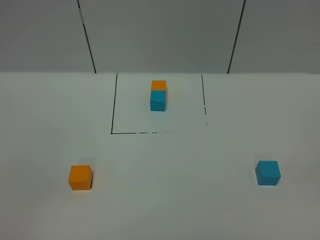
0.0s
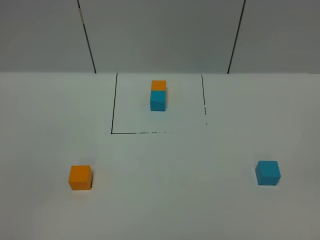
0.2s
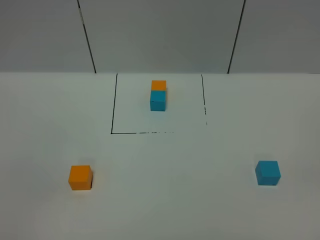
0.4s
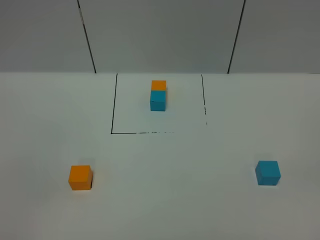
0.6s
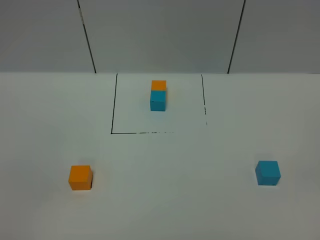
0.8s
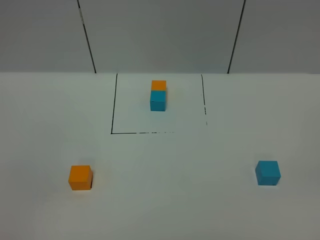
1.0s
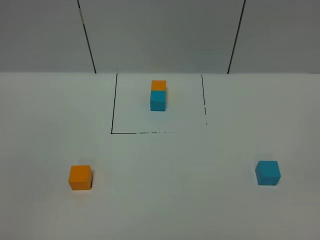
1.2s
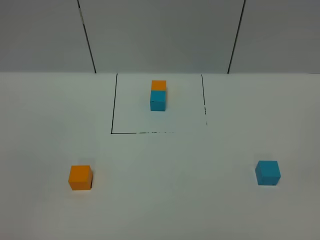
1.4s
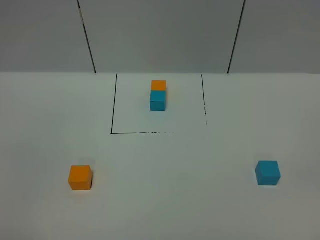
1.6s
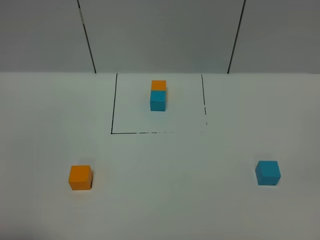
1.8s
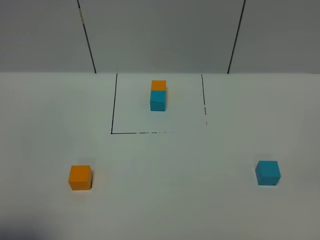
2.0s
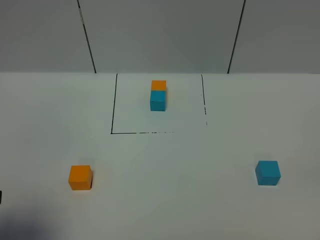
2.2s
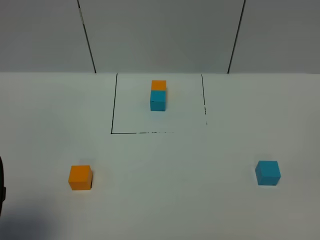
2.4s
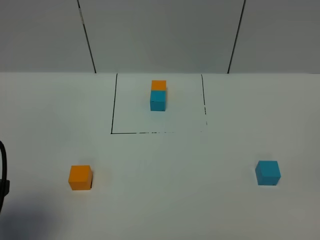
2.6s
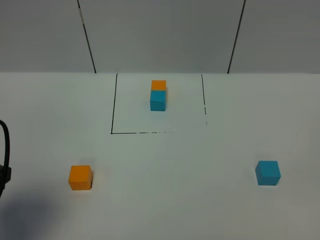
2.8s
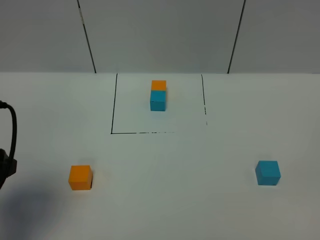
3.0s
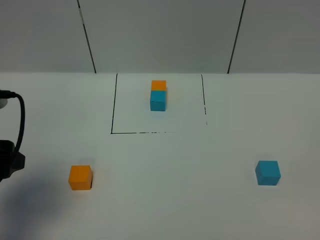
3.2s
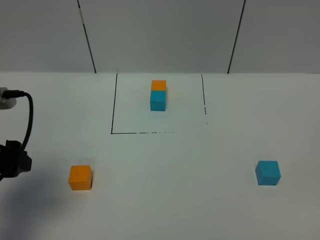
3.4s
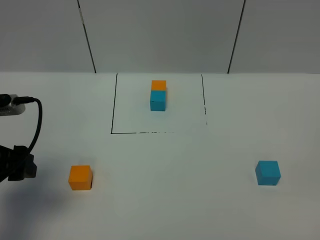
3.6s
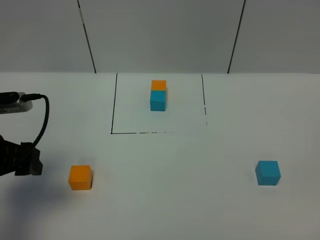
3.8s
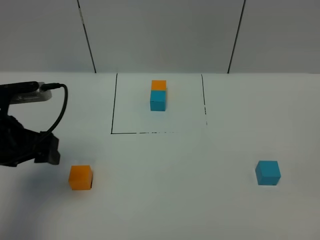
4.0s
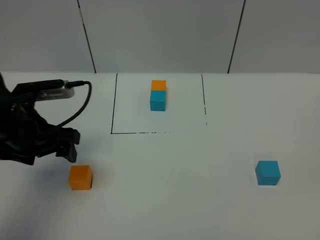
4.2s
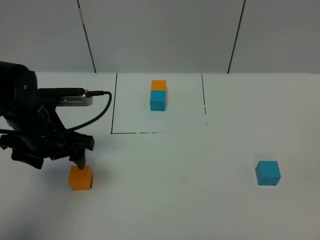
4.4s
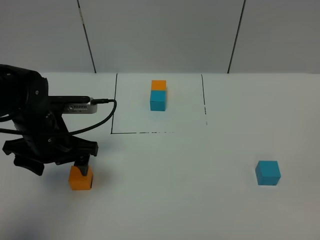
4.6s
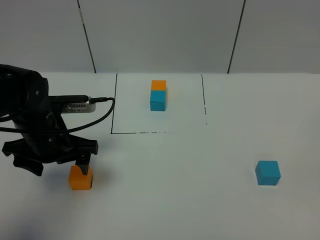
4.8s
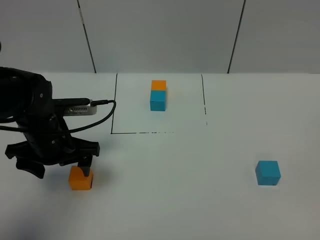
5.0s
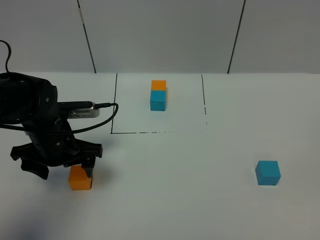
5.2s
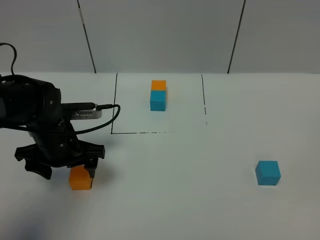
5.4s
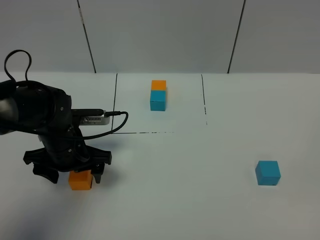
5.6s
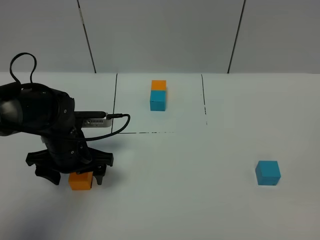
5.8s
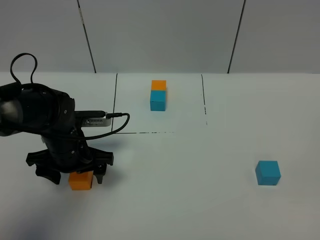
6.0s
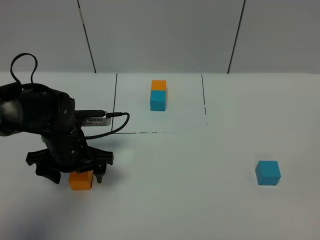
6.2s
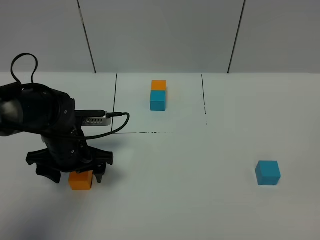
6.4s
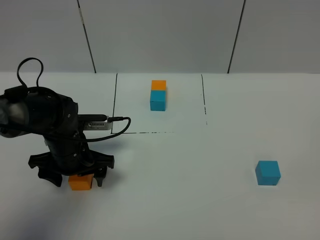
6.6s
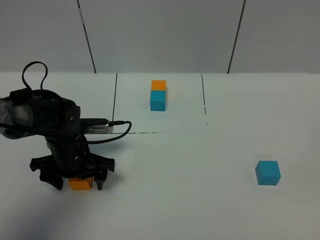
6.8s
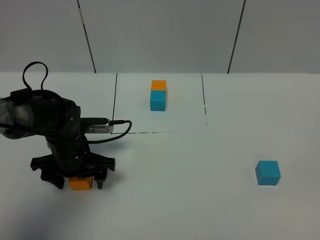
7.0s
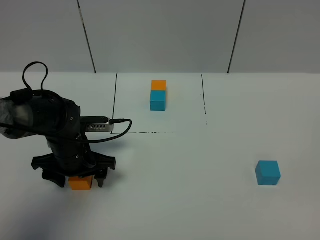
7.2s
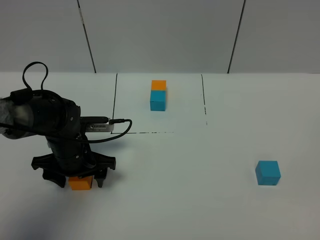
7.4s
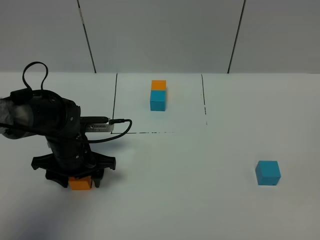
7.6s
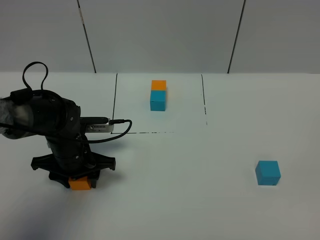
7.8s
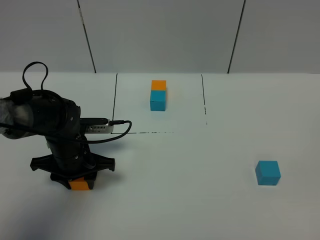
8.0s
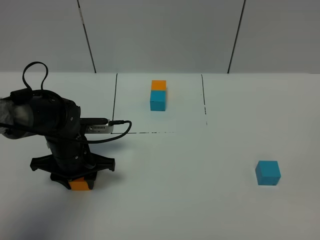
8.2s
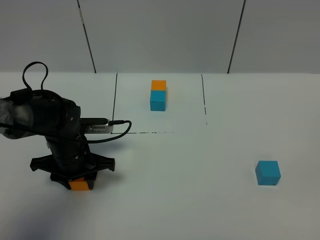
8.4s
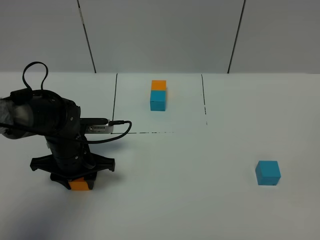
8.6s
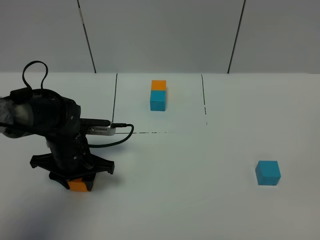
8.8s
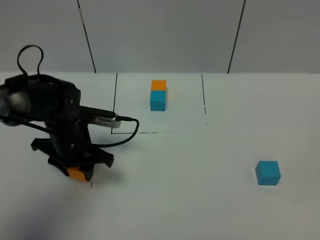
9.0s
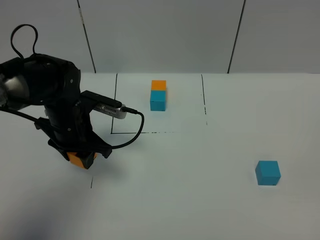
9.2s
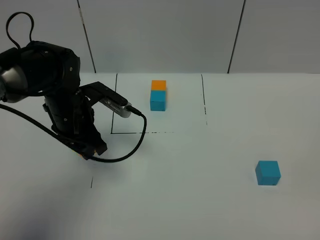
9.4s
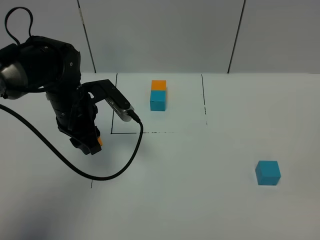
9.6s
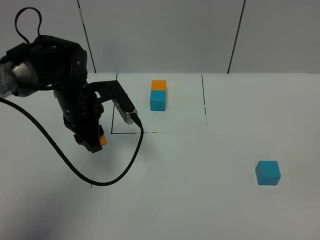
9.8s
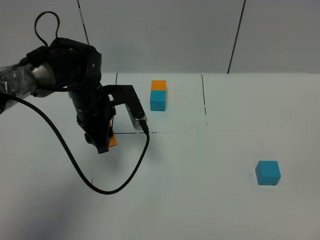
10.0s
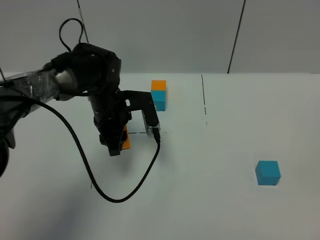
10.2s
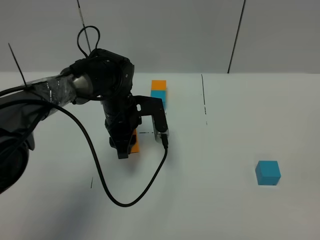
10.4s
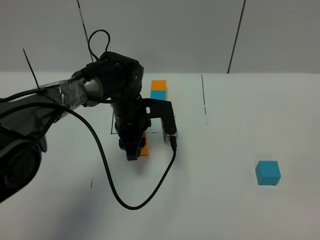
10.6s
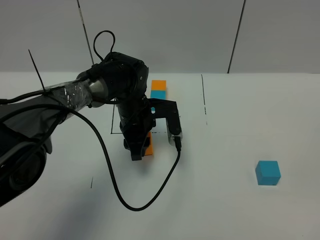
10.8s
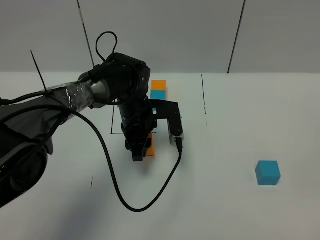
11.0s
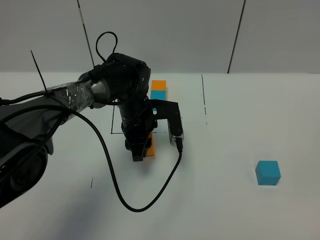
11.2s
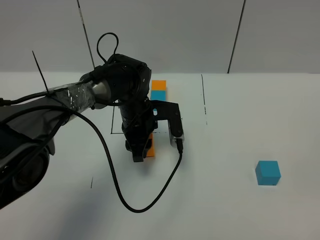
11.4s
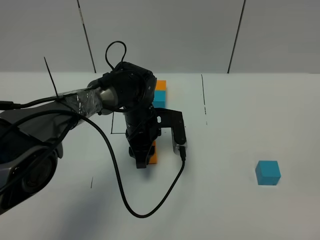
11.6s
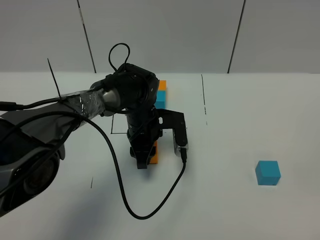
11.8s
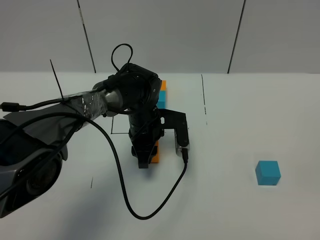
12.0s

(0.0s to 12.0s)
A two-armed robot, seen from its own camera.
Task of the whole recording: According to the building block template in front, assemble the scattered blocks together.
1.6s - 3.0s: The left gripper heads forward, covering about 15 cm.
3.0s - 4.4s: The left gripper moves forward, to the right and downward, some 15 cm.
4.4s - 6.0s: The left gripper heads downward, covering approximately 5 cm.
6.0s - 7.6s: The left gripper closes.
7.6s - 9.0s: The left gripper closes.
9.0s - 10.4s: The left gripper shifts some 10 cm to the right and forward.
10.4s - 12.0s: The left gripper shifts by some 5 cm.

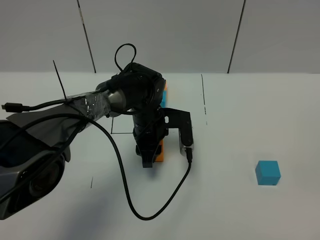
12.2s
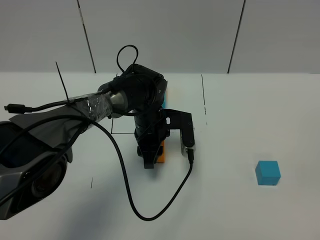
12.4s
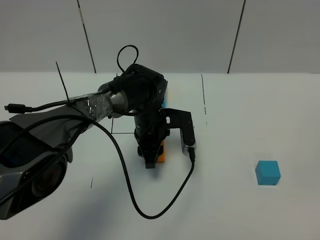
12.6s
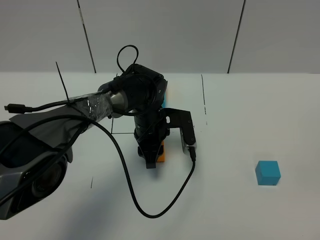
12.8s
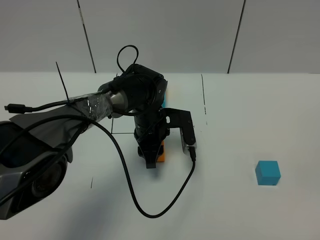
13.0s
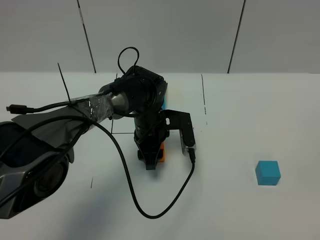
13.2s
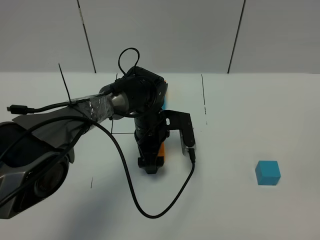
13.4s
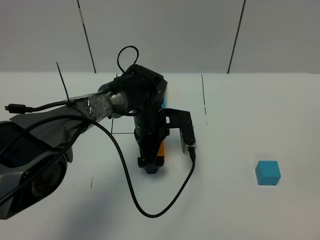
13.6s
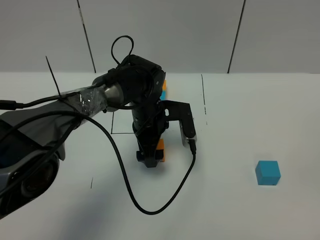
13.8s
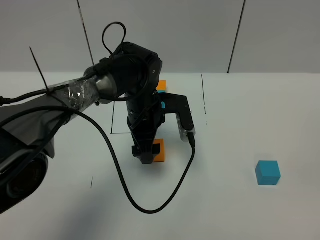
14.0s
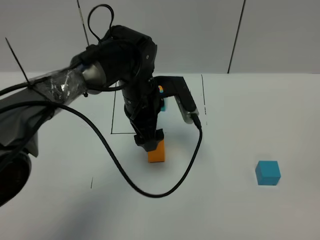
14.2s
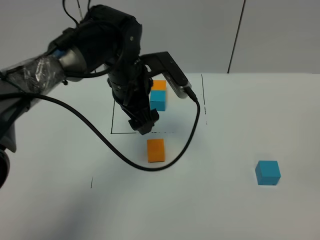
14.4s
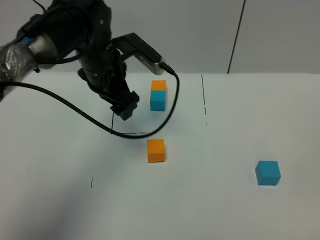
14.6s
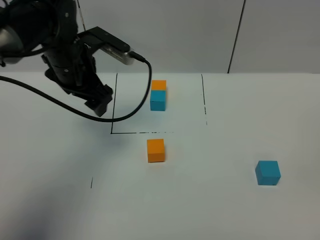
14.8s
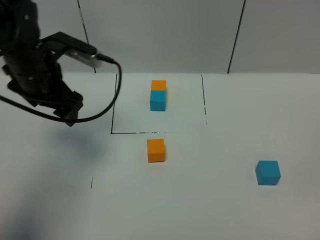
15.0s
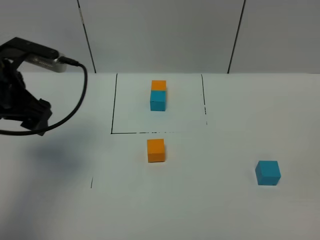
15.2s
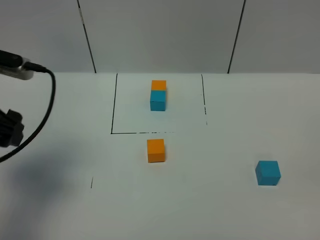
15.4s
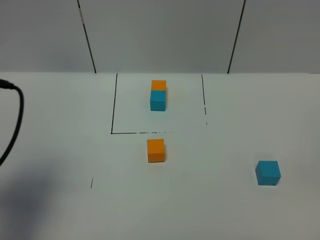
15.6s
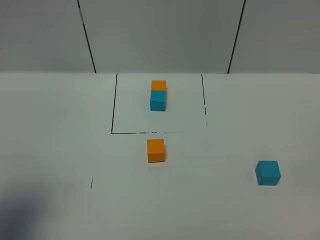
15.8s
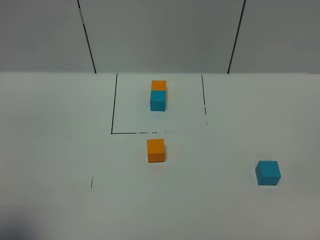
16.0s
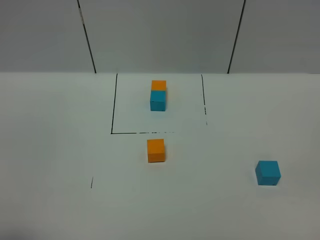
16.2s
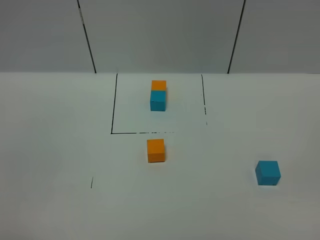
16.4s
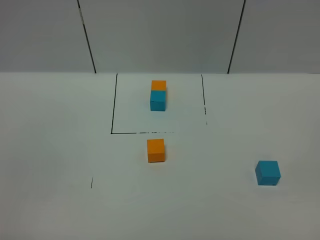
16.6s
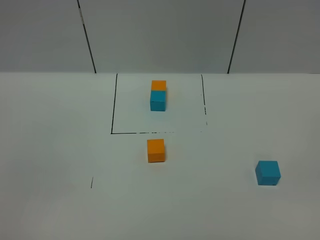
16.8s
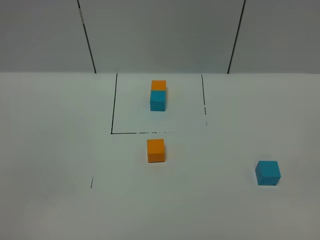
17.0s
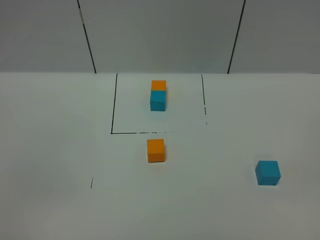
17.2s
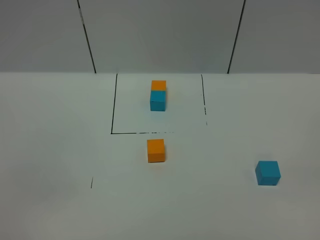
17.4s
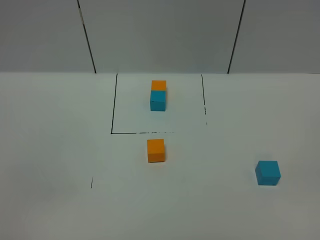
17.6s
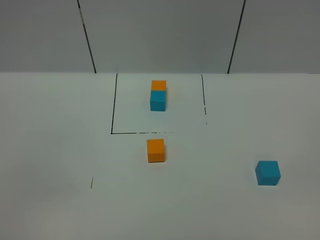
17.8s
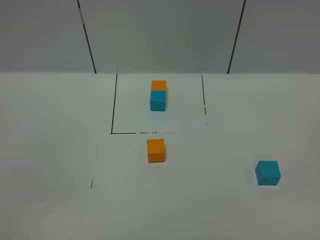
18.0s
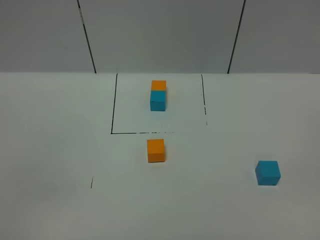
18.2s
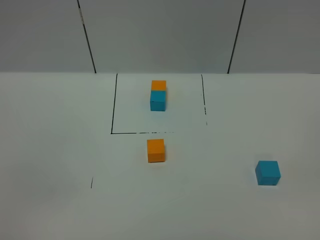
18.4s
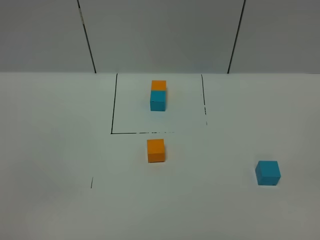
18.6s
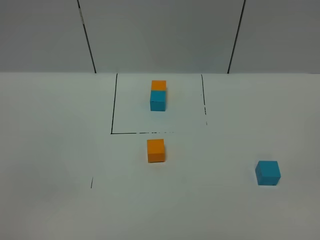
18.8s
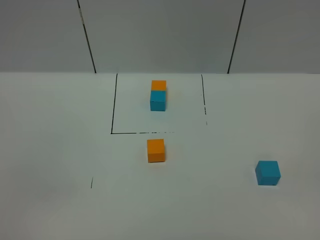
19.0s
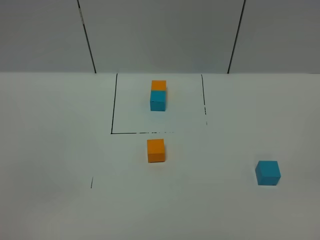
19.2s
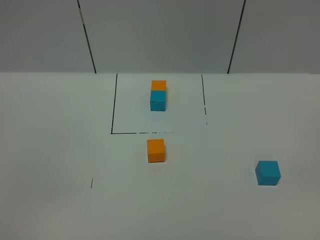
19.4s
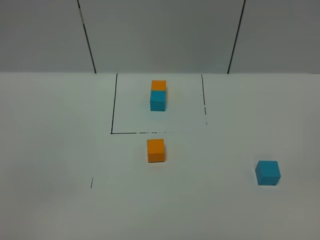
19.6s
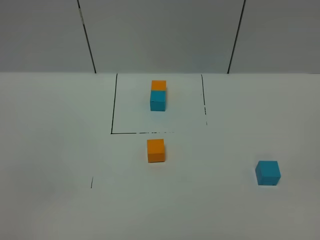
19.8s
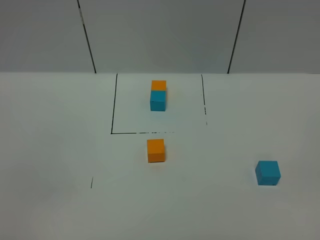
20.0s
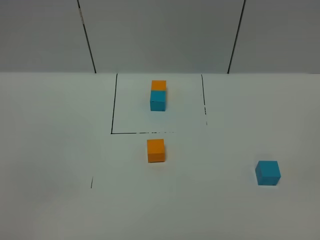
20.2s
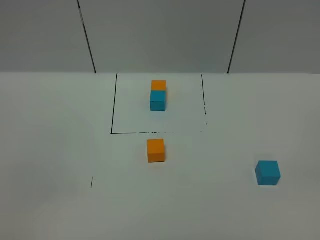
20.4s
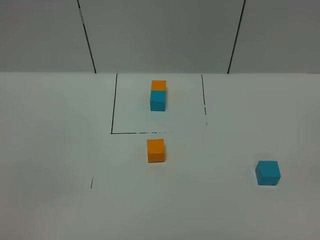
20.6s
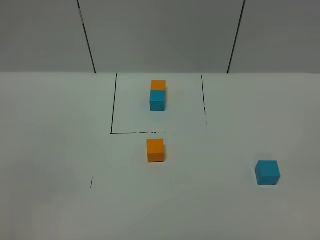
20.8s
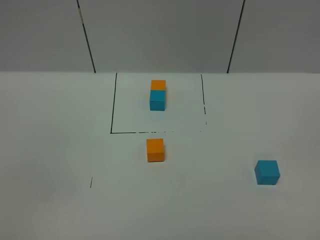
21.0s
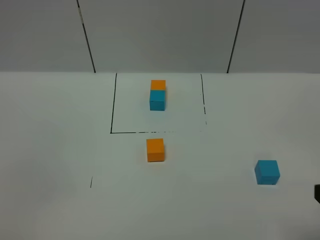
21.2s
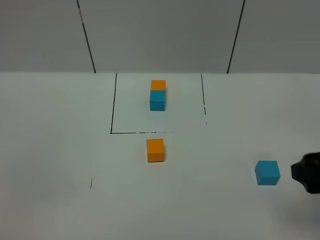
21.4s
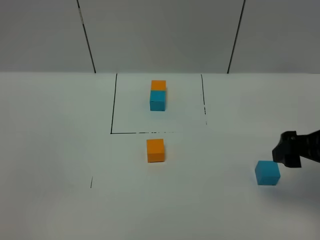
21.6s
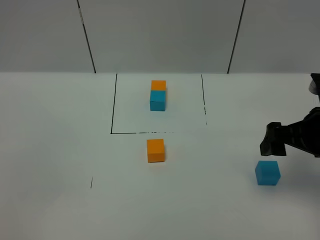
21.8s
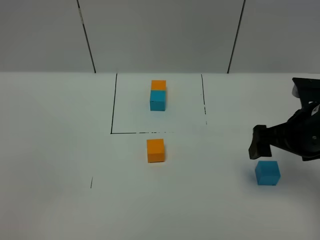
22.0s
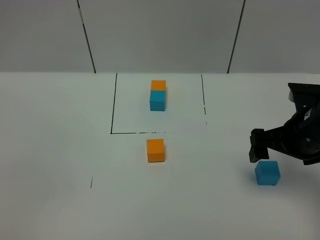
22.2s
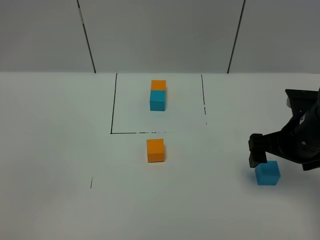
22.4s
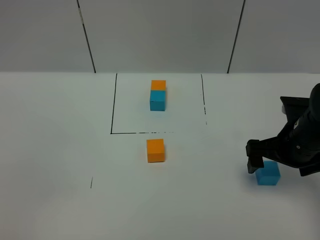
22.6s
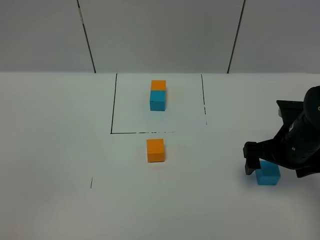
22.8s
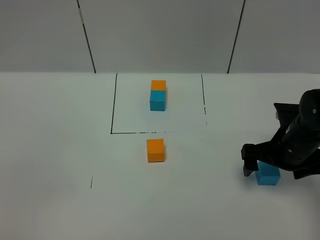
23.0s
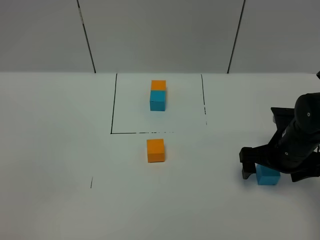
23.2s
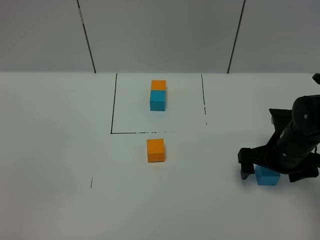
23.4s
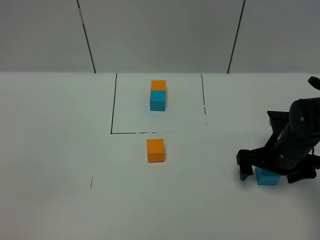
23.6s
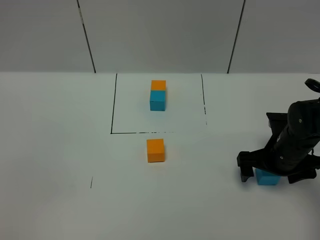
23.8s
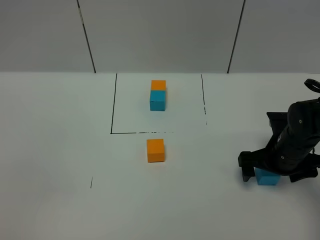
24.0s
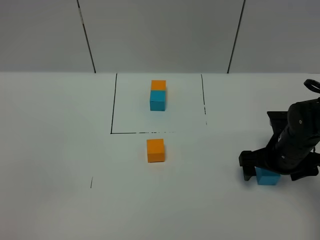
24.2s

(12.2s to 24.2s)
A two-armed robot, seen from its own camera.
Task of the whole recording: According to the building block template in front, assemble the scattered blocks together.
Step, 12.2s - 14.4s: Put the orange cube in the center of the table.
12.2s - 13.8s: The left gripper opens.
13.8s - 15.2s: The left gripper goes about 25 cm to the left and upward.
15.2s - 16.6s: The left gripper goes approximately 30 cm backward.
21.2s - 22.6s: The right gripper is displaced forward and downward by about 20 cm.
22.6s - 24.2s: The right gripper shifts about 5 cm downward.
